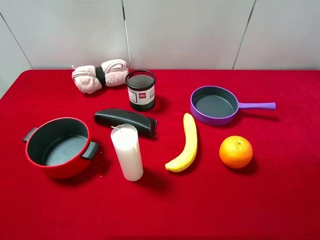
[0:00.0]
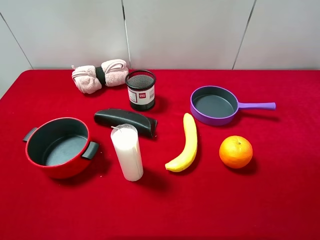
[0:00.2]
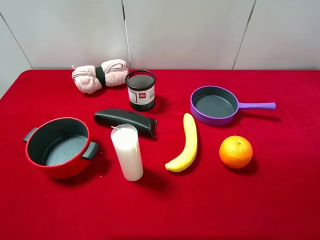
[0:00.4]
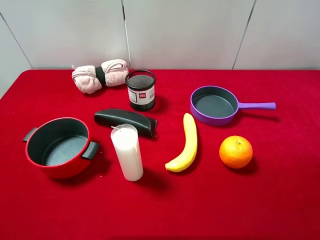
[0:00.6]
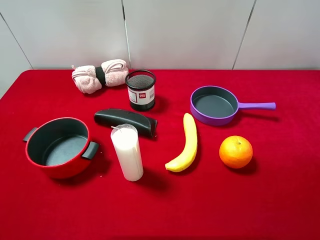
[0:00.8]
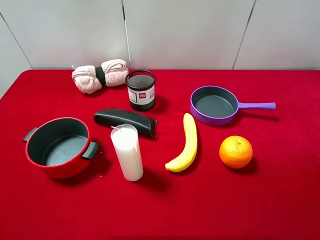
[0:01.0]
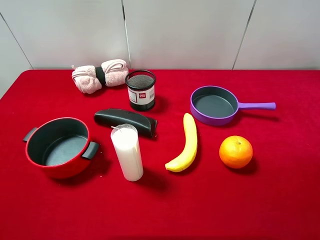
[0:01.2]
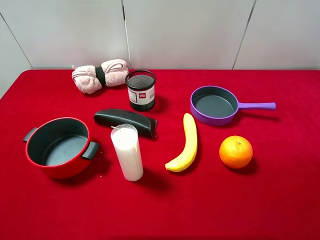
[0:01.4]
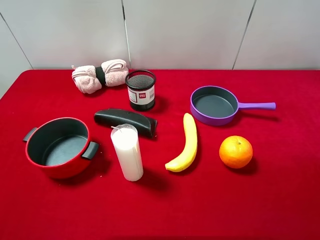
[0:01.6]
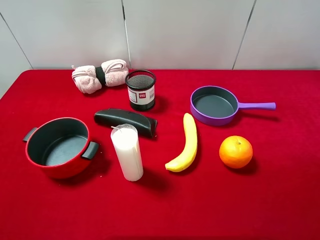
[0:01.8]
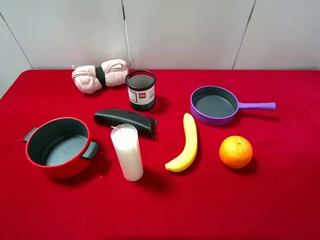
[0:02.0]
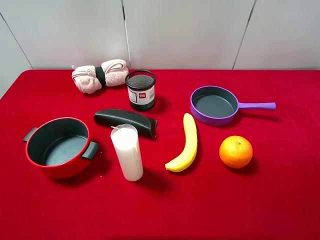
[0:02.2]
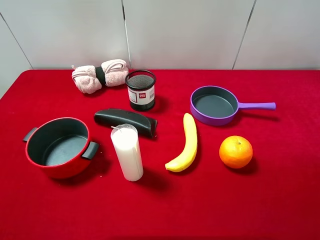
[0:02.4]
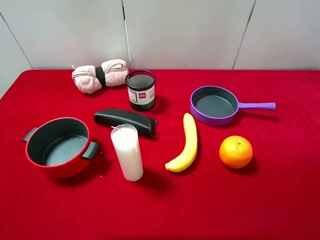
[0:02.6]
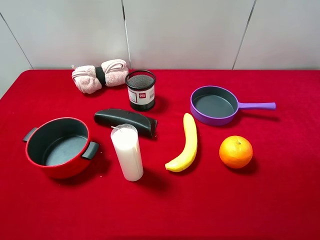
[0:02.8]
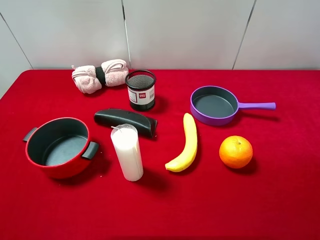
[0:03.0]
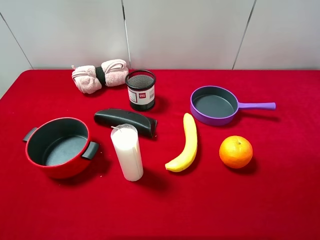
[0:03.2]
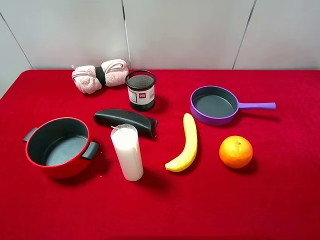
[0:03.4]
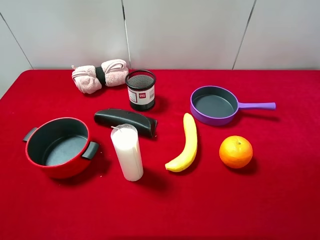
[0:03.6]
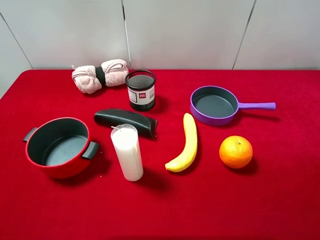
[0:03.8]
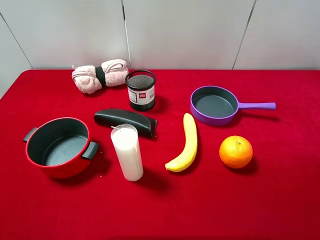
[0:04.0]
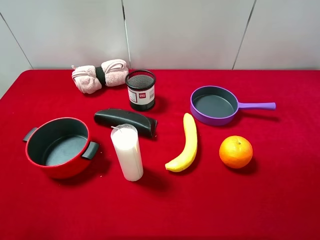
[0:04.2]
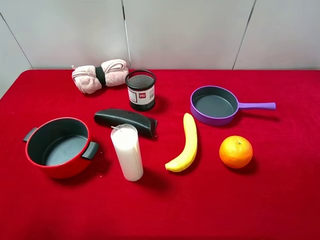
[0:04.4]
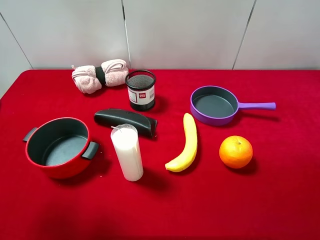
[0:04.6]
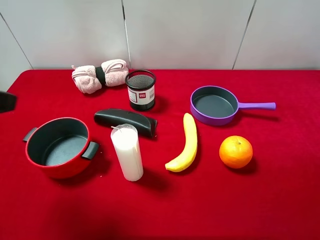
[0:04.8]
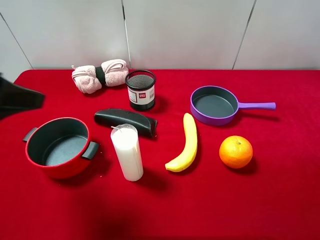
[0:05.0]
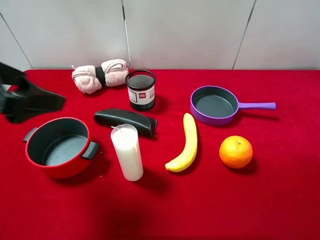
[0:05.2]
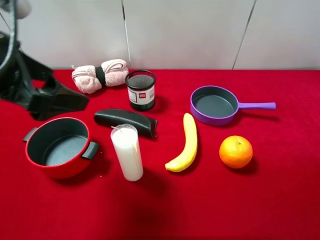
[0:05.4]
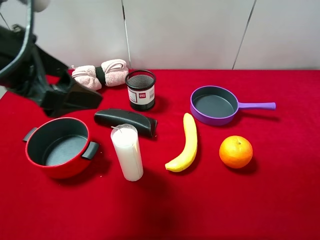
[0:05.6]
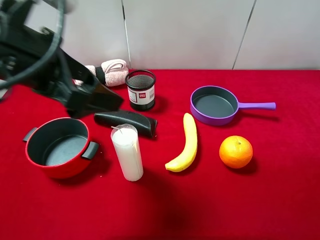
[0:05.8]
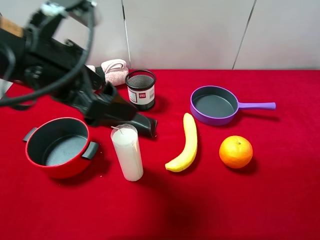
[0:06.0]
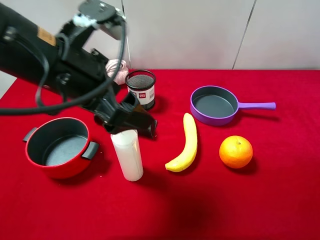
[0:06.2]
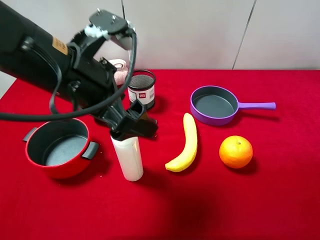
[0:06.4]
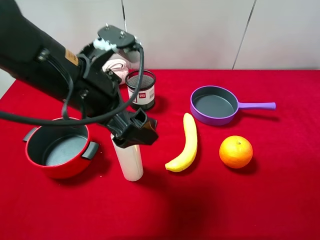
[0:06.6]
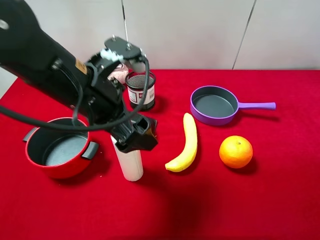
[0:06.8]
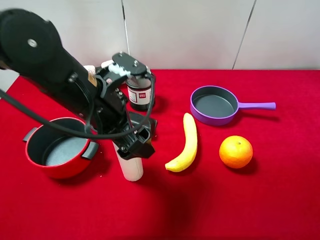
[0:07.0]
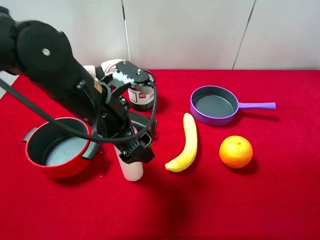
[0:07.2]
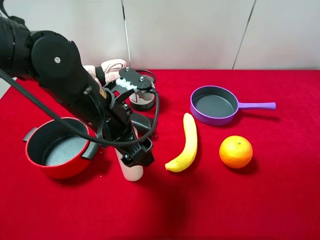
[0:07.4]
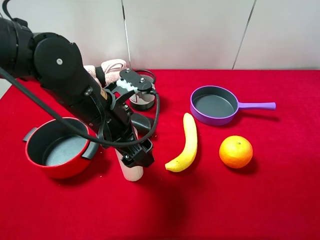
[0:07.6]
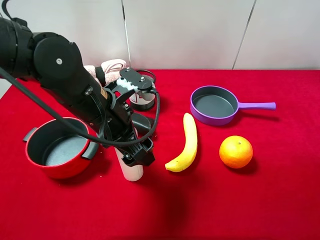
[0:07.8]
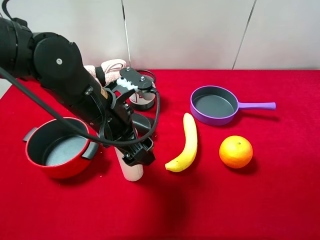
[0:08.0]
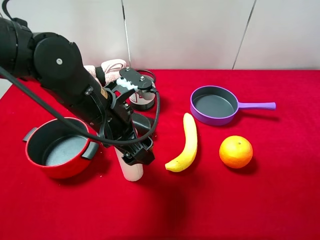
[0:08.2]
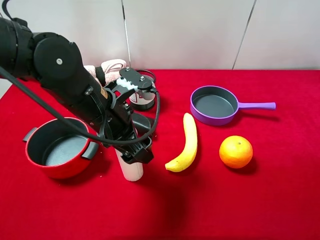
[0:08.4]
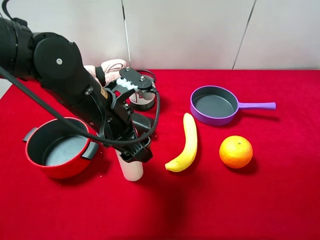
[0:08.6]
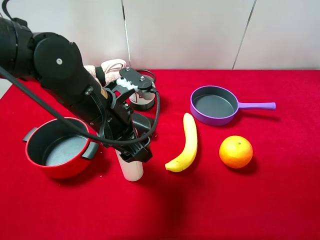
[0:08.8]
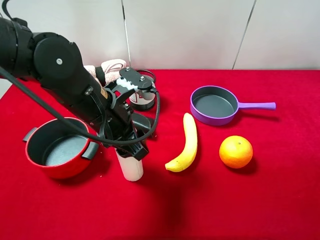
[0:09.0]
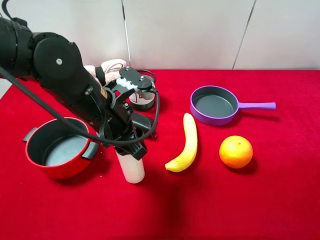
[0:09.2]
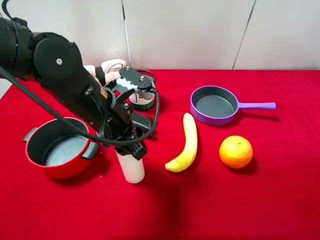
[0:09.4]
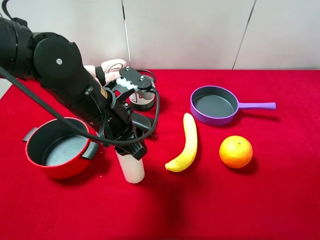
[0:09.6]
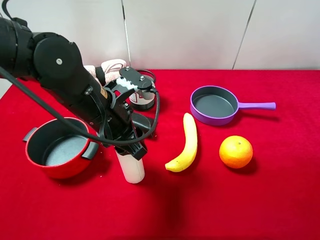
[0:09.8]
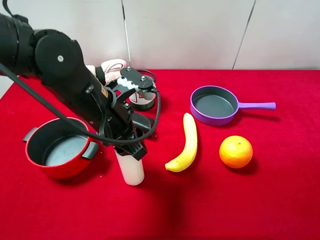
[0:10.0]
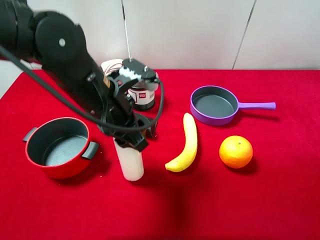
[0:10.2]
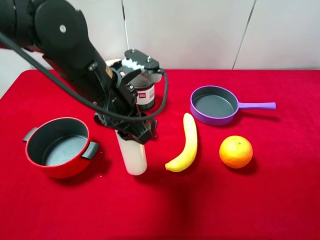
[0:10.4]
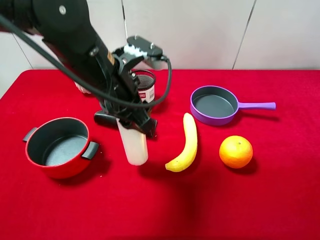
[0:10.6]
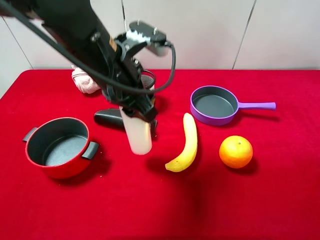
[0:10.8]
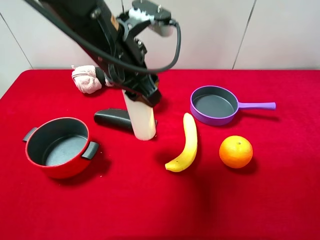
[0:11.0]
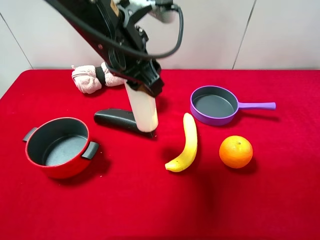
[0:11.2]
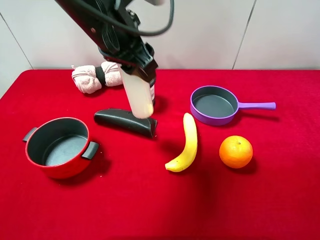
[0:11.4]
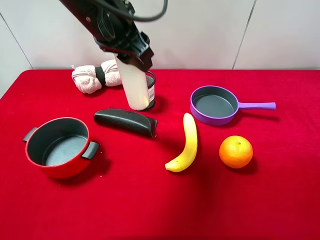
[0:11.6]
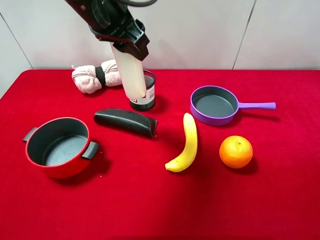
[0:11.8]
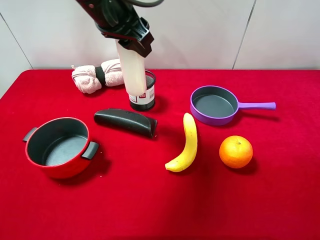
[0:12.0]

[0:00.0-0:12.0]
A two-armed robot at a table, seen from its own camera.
Task of the whole recording: pick up an item with a gripper and place it in a random container on the desktop.
1.6 to 3.0 s: Both grippers stay put.
4.4 to 6.0 s: The left gripper travels to the right and forward by about 20 cm.
6.0 to 7.6 s: The left gripper is displaced downward and to the right by approximately 10 cm.
7.6 to 9.0 s: The left gripper closes its fingers.
9.0 to 10.4 s: The left gripper closes its fingers.
10.4 to 12.0 s: The left gripper is displaced upward and forward by approximately 15 cm.

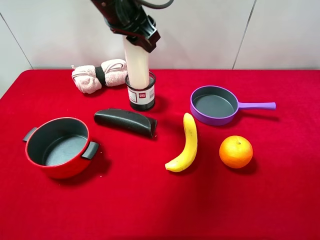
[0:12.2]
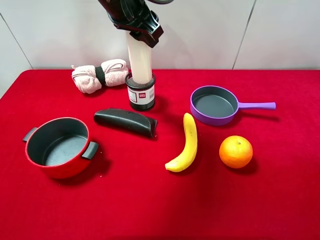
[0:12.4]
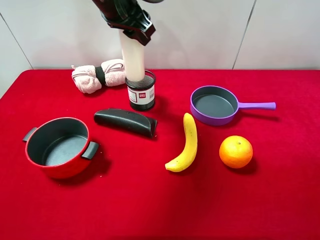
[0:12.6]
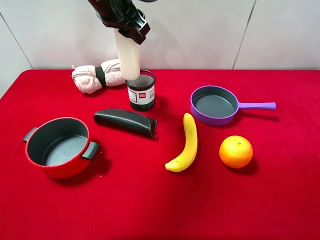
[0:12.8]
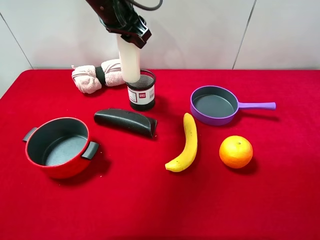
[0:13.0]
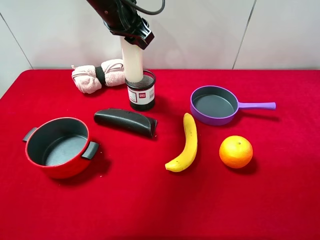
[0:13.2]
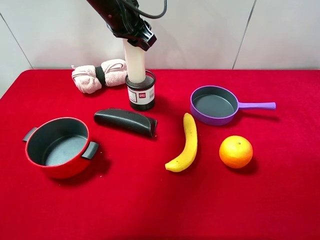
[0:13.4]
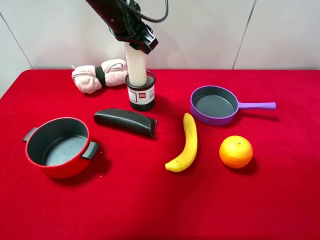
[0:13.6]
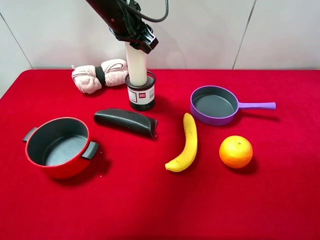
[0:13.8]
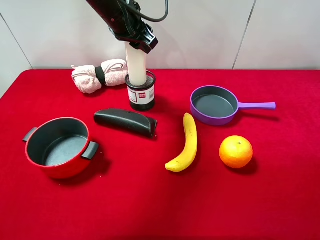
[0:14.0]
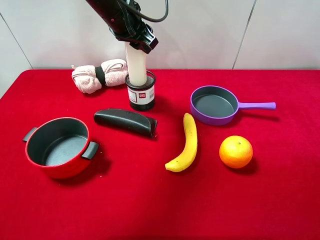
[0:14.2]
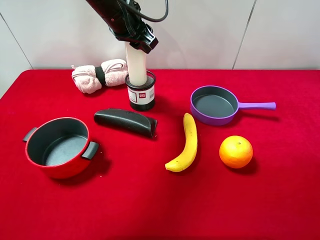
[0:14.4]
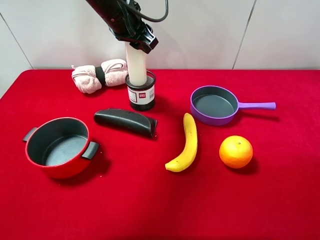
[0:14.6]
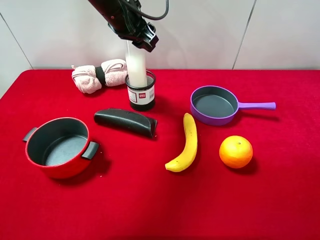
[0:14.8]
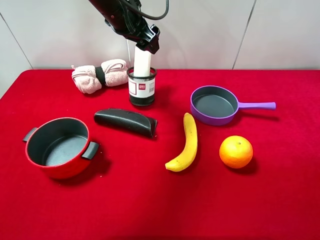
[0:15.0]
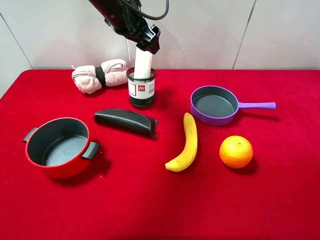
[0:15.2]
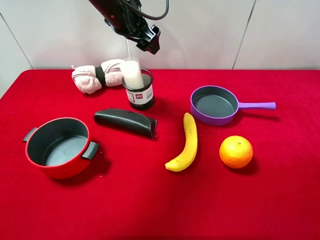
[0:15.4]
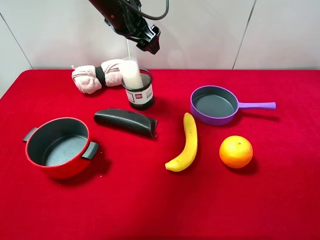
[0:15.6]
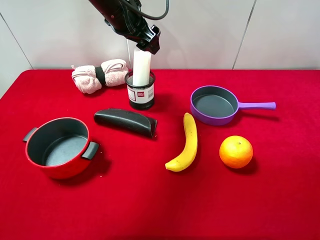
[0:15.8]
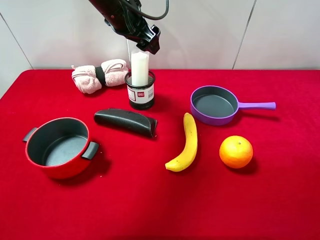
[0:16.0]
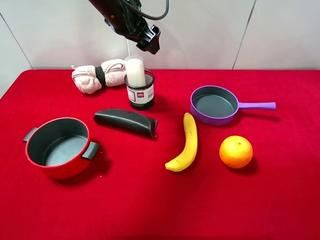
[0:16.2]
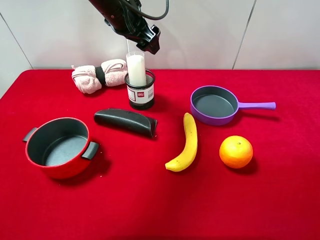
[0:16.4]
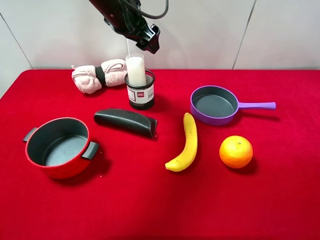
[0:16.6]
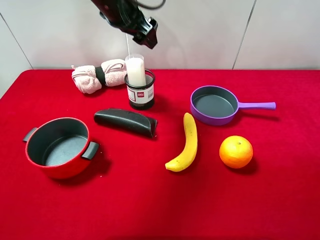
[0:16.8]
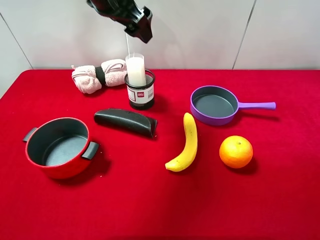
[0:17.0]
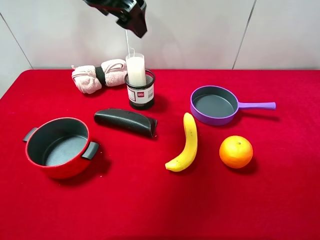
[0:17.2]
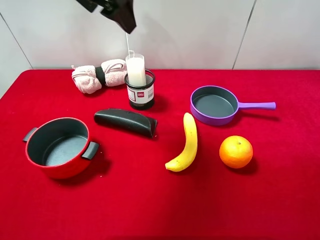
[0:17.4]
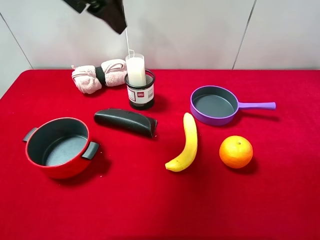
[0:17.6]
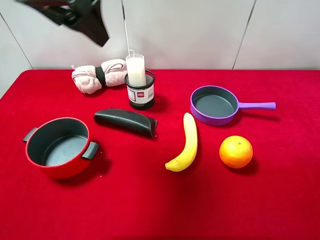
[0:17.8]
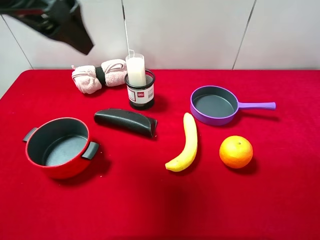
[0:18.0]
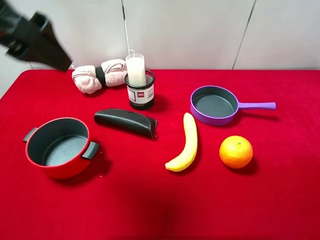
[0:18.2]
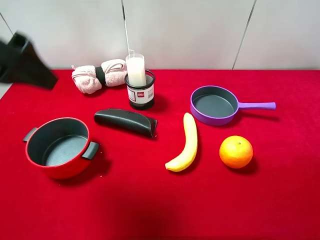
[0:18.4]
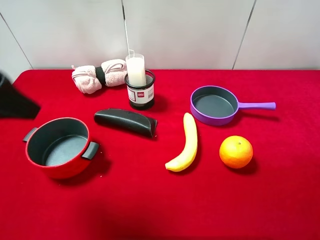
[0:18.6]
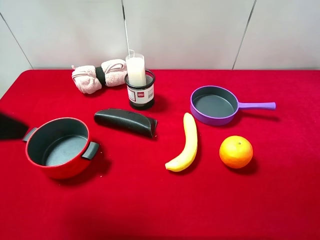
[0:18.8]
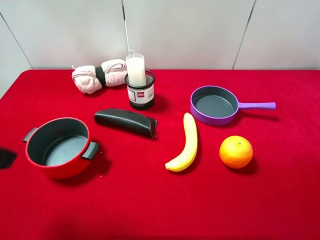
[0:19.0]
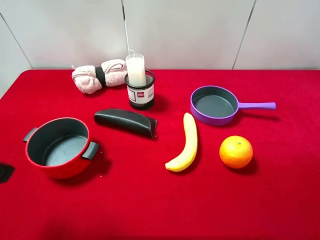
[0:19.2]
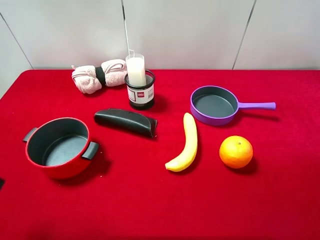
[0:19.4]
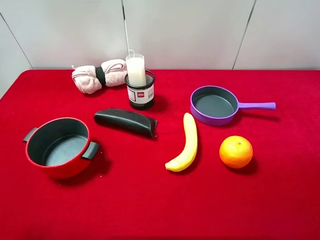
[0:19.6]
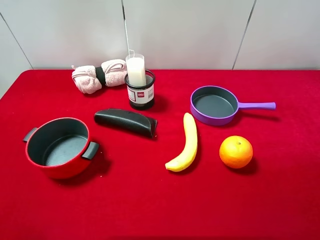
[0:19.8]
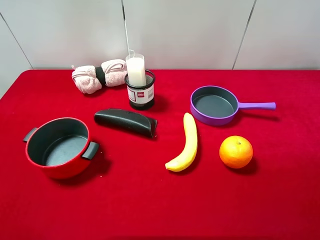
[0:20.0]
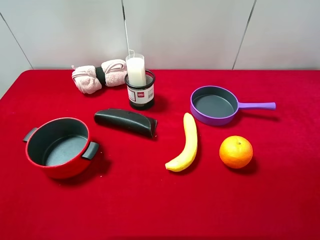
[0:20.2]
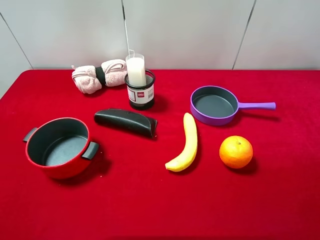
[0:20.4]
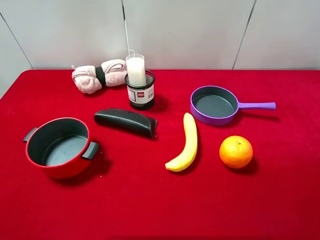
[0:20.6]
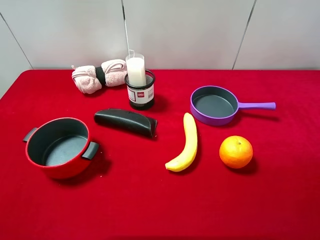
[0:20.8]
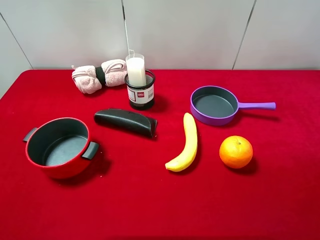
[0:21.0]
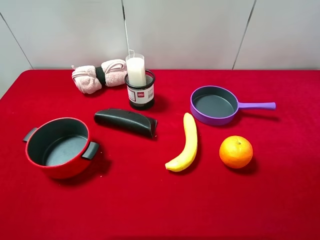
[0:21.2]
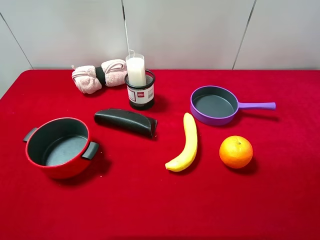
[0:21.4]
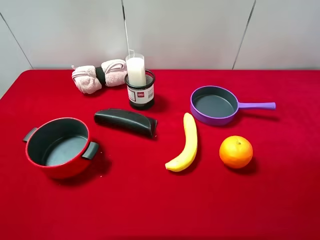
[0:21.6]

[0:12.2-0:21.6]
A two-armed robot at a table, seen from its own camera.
Task of the whole recording: pick up an item with a gripper and place it in a random container on the desktop.
12.2 to 13.8 s: The left gripper heads forward, covering about 5 cm.
13.8 to 15.4 s: The left gripper opens.
15.4 to 17.0 s: The grippers stay close to where they were, moving slightly.
17.0 to 18.4 s: The left gripper moves backward and to the left, some 20 cm.
18.4 to 20.0 s: The left gripper travels backward, to the left and downward by some 20 cm.

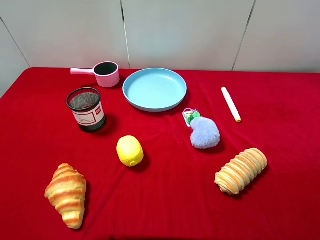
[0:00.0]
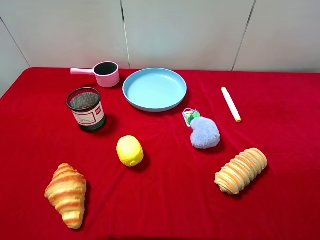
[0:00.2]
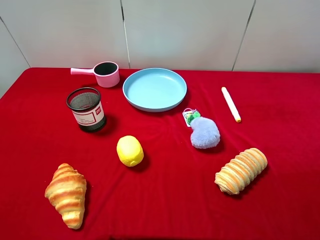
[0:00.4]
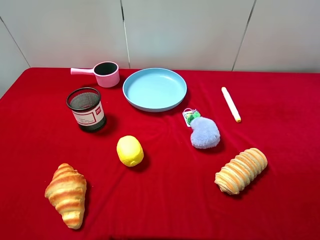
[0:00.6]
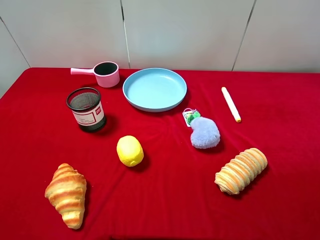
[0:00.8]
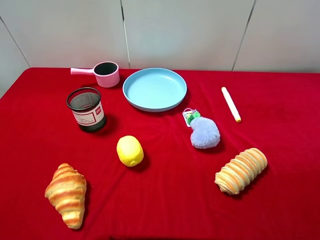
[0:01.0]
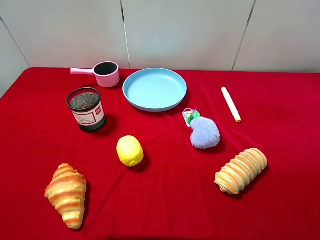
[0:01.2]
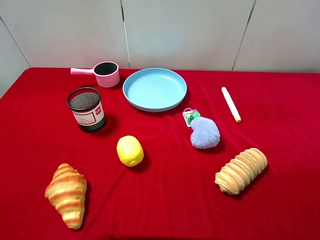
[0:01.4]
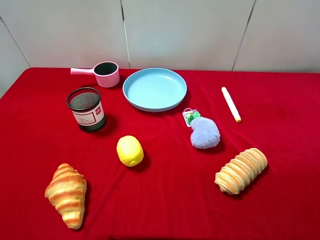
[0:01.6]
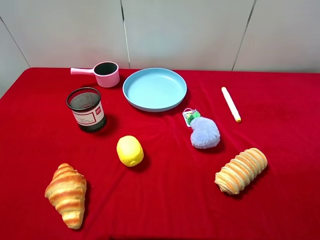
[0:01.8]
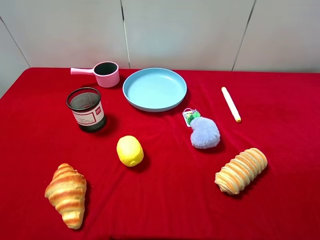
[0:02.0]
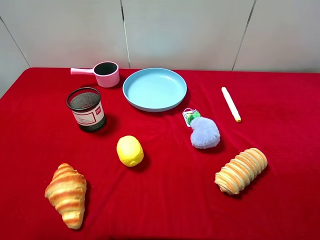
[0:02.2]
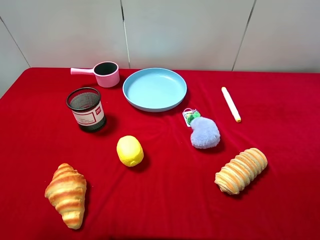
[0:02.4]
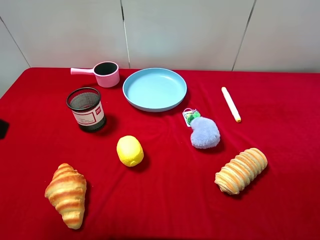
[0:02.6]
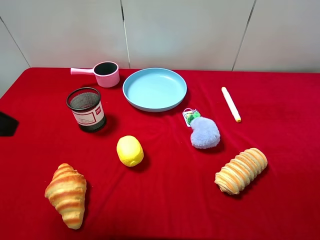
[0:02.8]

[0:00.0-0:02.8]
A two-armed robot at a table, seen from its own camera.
Task of the whole recording: pick up an item with a gripper and place it in a random container on the desktop.
0.0 to 1.4 s: The two grippers keep their place.
1.4 to 2.8 s: The left gripper is displaced forward by about 15 cm.
